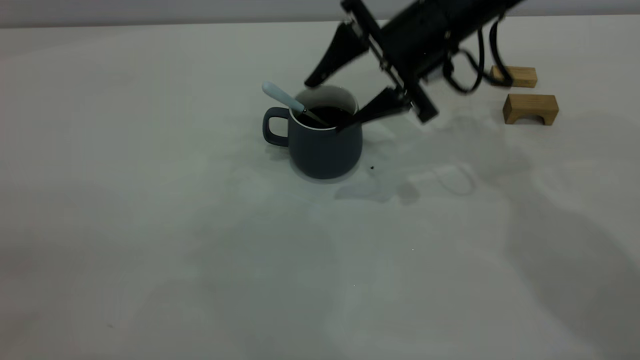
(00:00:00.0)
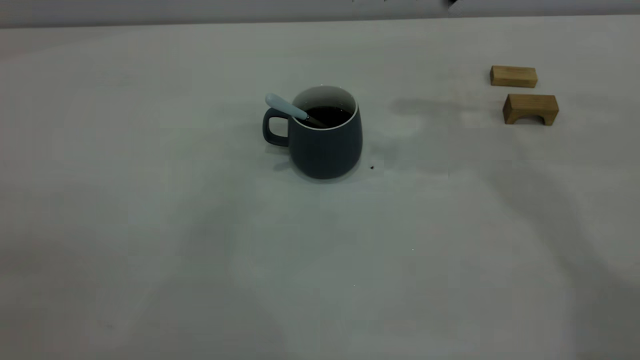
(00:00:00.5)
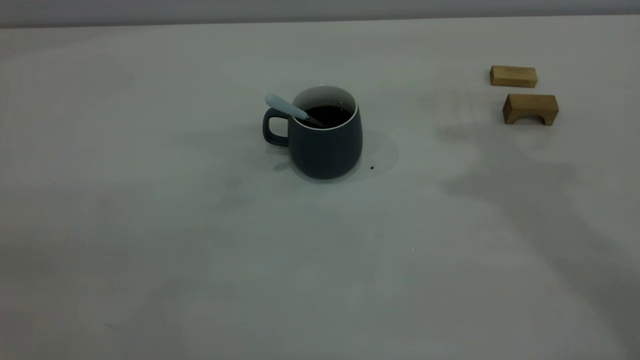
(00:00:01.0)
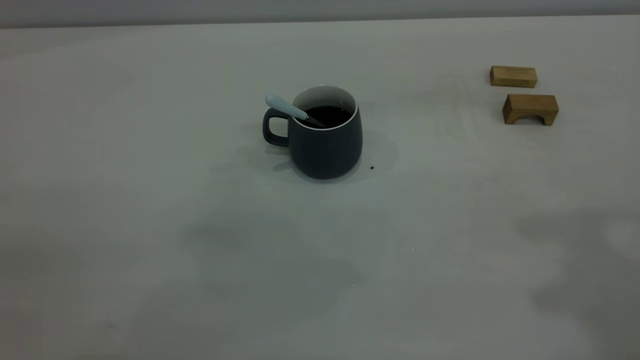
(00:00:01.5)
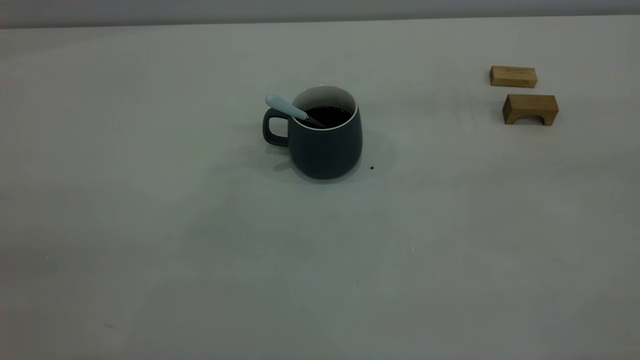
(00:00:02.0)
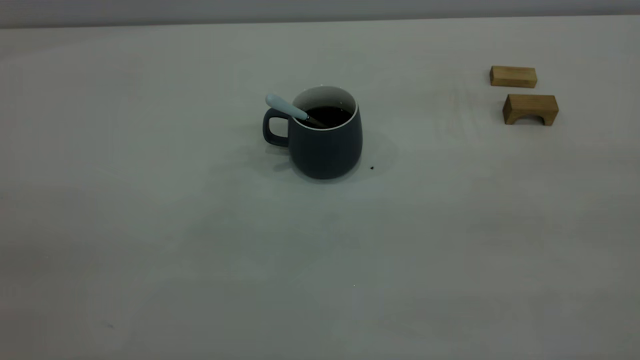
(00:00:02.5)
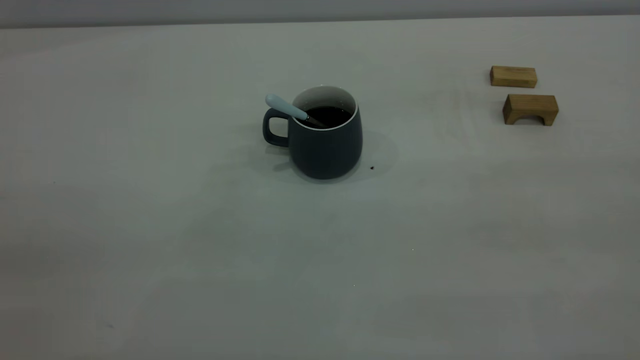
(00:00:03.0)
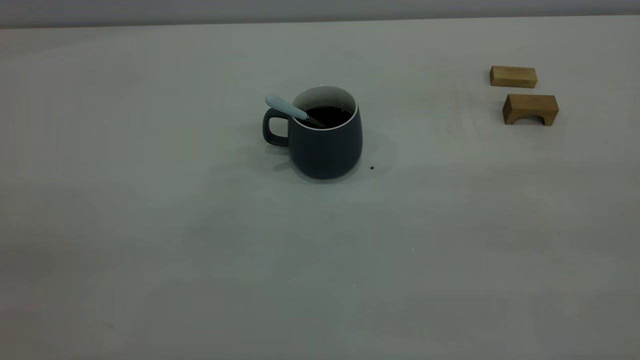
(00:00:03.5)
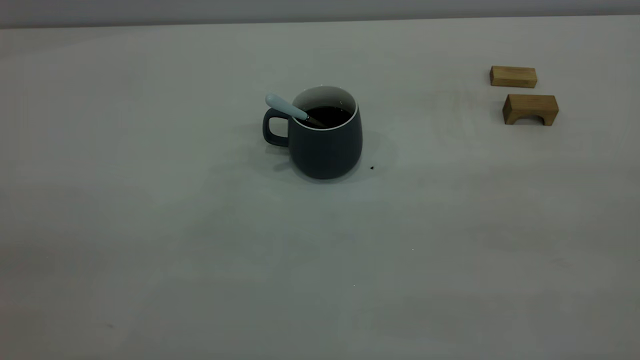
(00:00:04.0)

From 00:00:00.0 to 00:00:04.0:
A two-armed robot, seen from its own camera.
From 00:00:00.0 to 00:00:02.0: The right gripper moves backward, upward and to the right, about 50 cm, and closes up.
